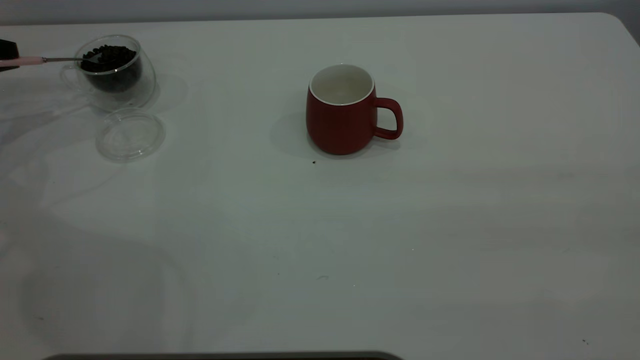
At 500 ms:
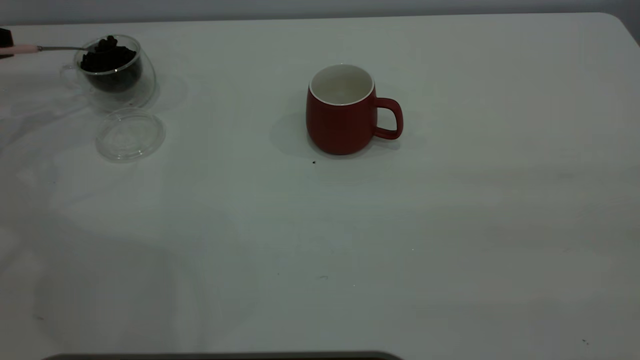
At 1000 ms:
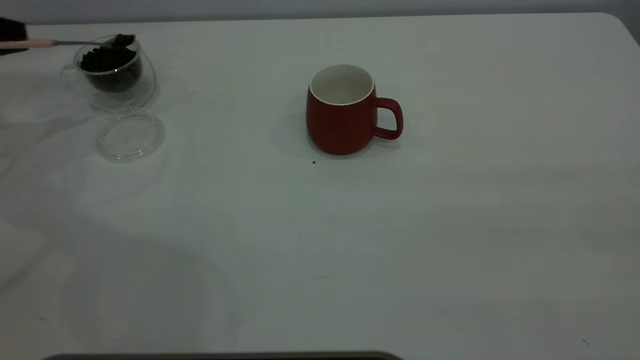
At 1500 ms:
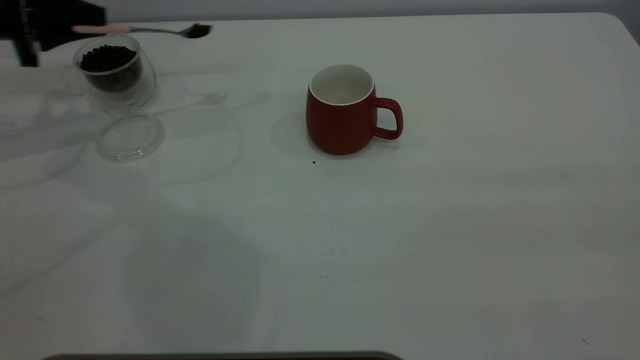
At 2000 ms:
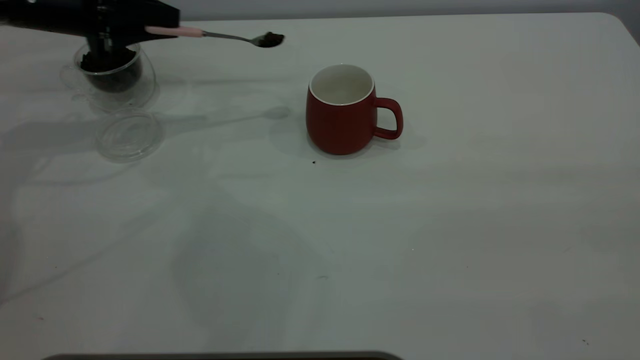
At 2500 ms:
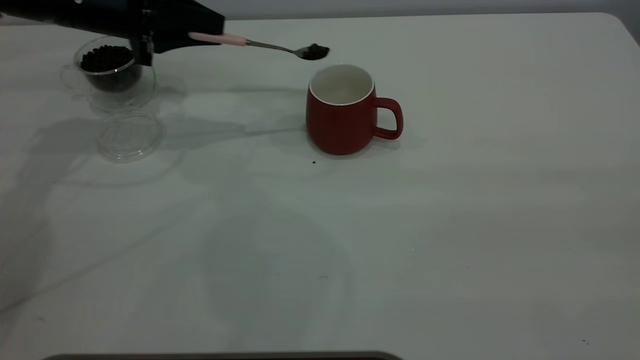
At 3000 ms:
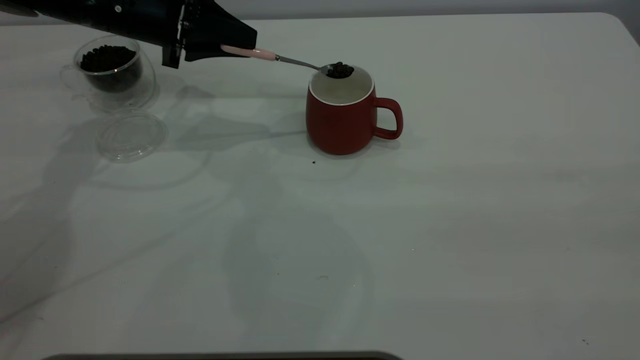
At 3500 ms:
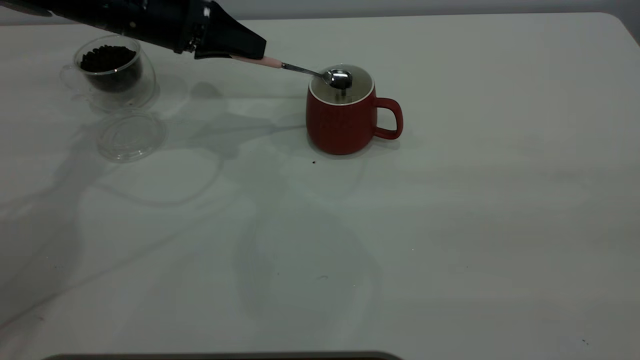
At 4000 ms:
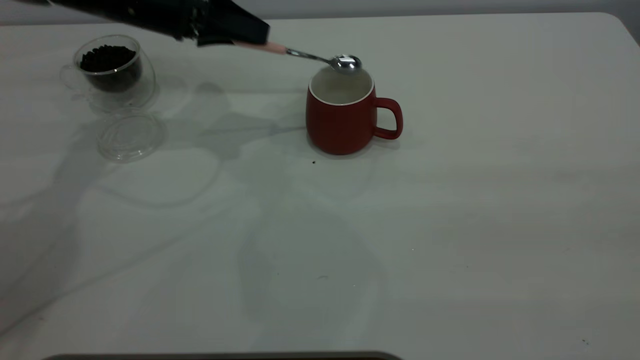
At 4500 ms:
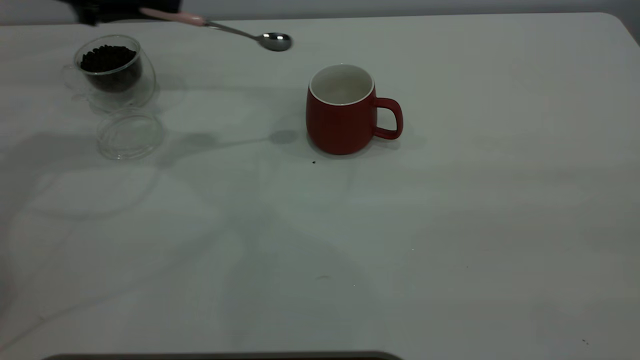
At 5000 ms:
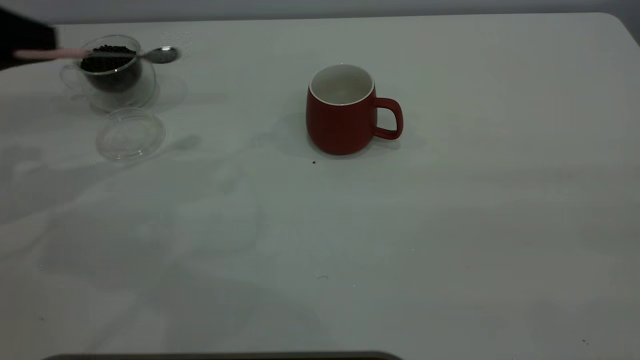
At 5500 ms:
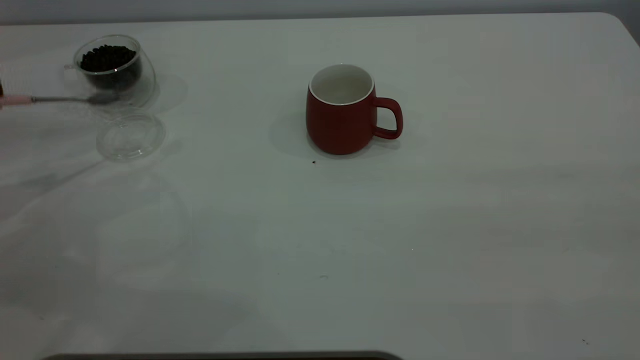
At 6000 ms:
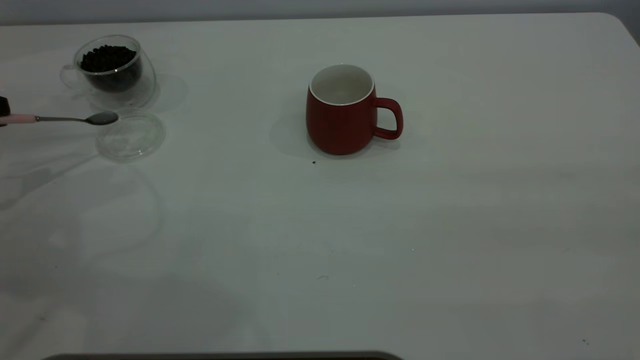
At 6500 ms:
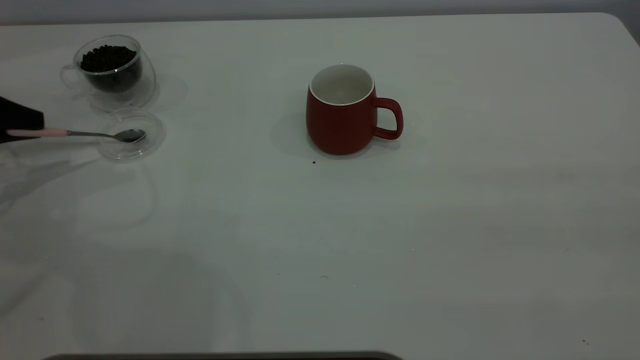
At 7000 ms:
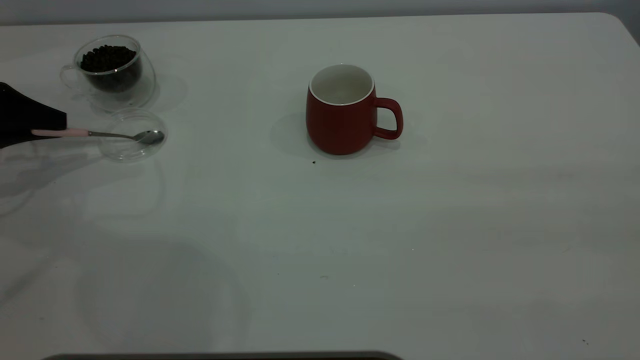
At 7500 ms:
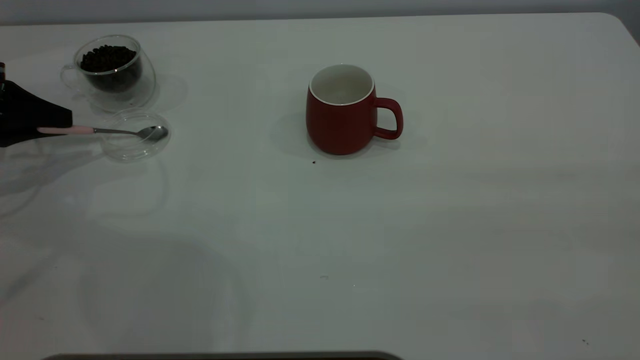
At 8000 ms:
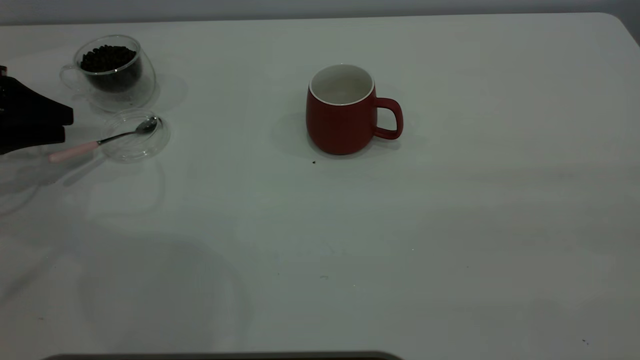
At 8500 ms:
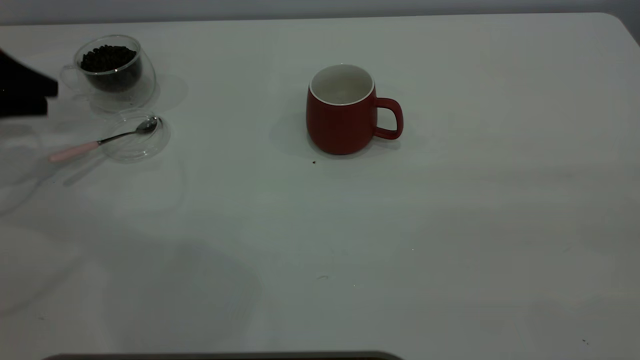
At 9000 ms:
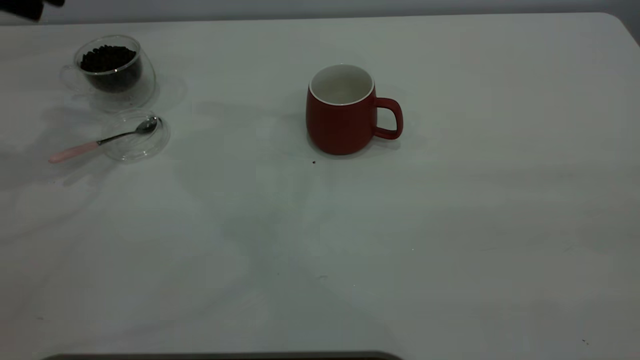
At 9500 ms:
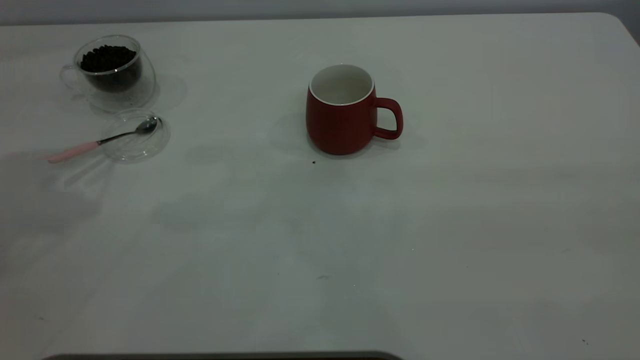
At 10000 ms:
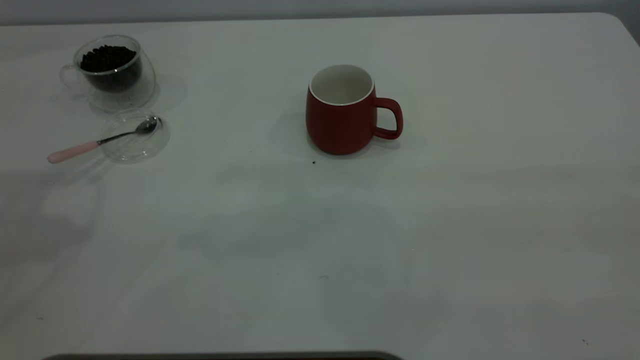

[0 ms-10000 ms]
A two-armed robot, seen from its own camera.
Task of the whole recording: the right gripper place the red cup in the center of the table, the left gripper take the pink spoon from the cup lid and scoop out the coffee beans from the coffee cup and put them into the red cup, the left gripper put the spoon back into the cup lid.
Step, 0 ms to 4000 ms: Scoop a spoonful of beans into the cup.
Step, 4500 ms to 8500 ms: Place the spoon back in its original place.
0 ms to 2000 ms: The left gripper moves to the right, some 20 cm.
2000 ms to 4000 ms: The left gripper heads to the right, covering roughly 10 cm.
4000 ms to 6000 ms: The left gripper travels to the left and backward by some 30 cm.
6000 ms to 8000 ms: The left gripper shifts roughly 5 cm forward, and opens up.
8000 ms to 10000 ms: The left gripper moves upward and to the right, roughly 30 cm.

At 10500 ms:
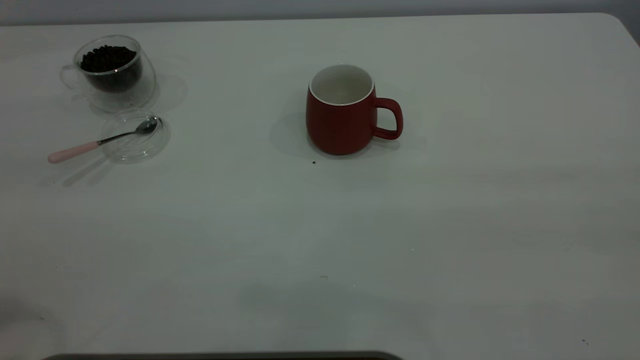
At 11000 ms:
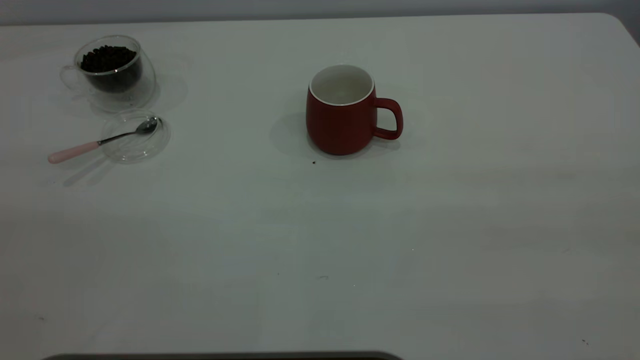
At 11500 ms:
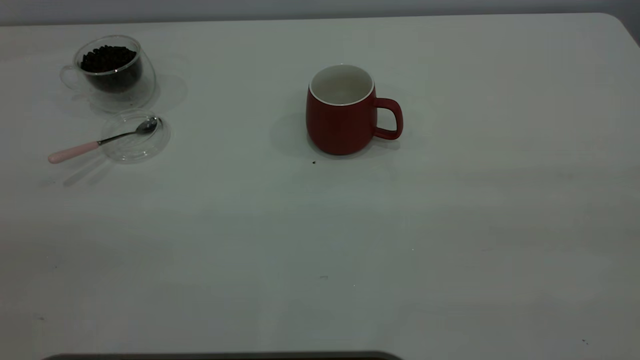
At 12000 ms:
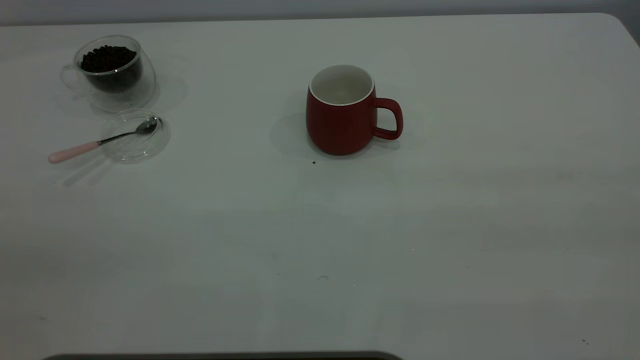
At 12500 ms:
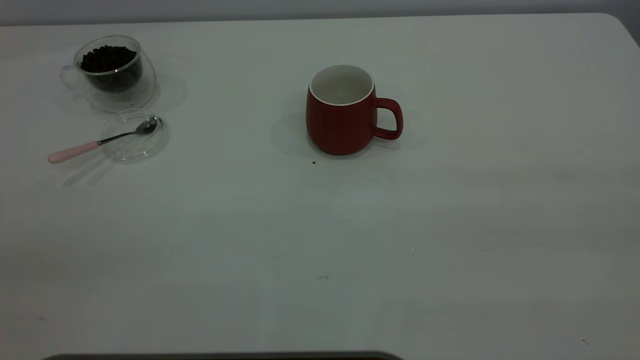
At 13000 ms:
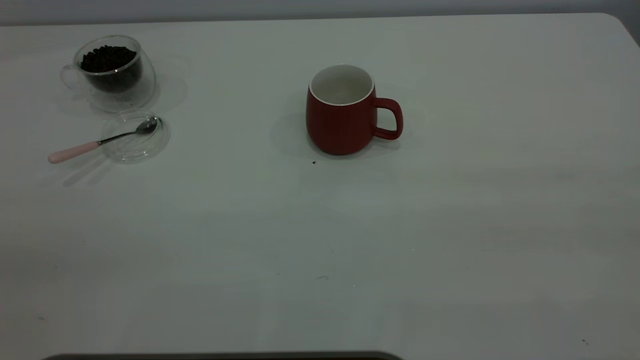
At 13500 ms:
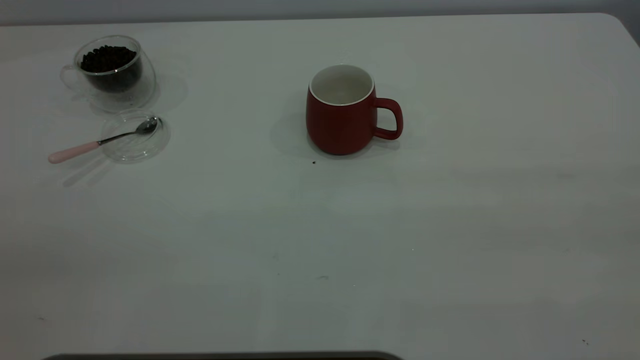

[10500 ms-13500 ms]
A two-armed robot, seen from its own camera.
Task of the whole recording: the right gripper place the red cup in the center of the table, the left gripper take the pink spoon from the cup lid and scoop out the coffee beans from the coffee cup and put them into the red cup, the left gripper put the spoon back into the cup lid.
12000 ms to 13500 ms: Neither gripper changes place.
